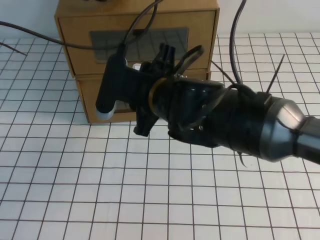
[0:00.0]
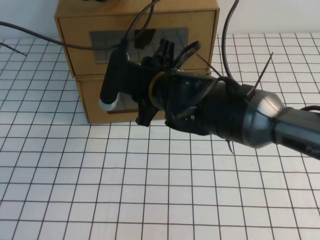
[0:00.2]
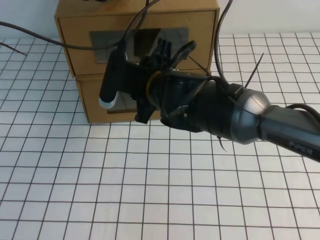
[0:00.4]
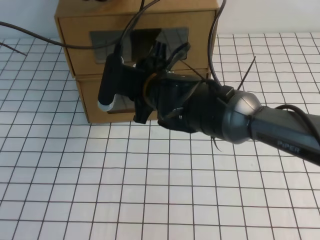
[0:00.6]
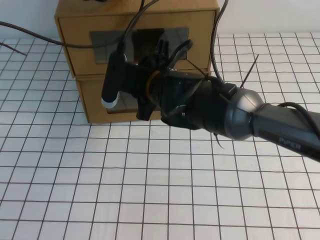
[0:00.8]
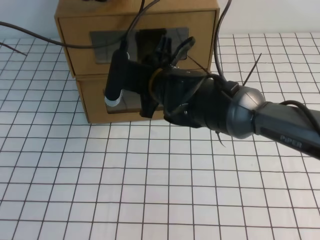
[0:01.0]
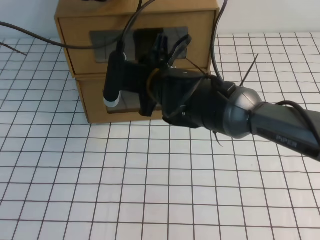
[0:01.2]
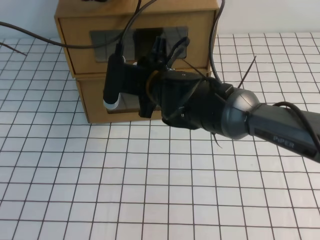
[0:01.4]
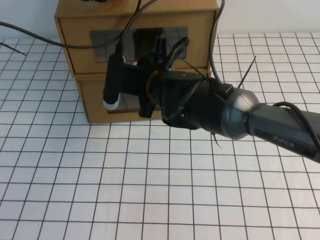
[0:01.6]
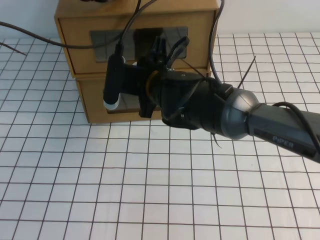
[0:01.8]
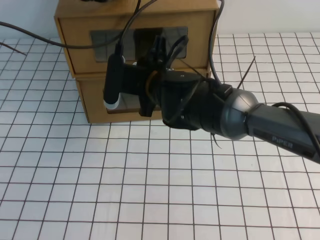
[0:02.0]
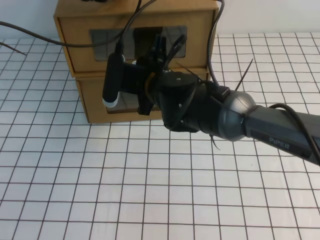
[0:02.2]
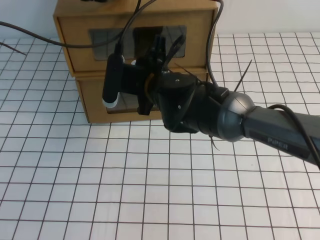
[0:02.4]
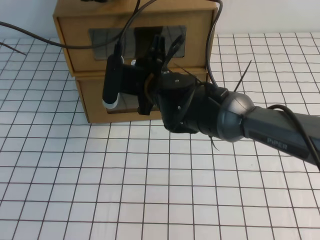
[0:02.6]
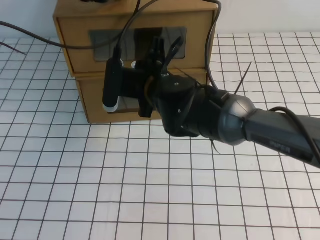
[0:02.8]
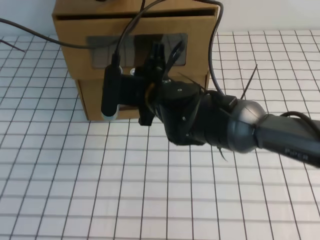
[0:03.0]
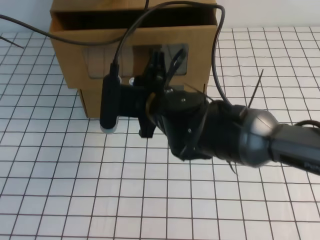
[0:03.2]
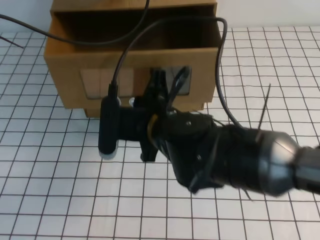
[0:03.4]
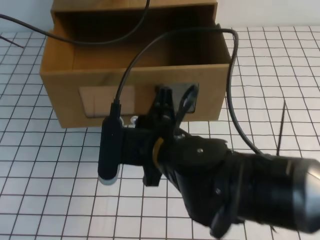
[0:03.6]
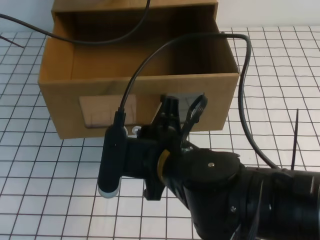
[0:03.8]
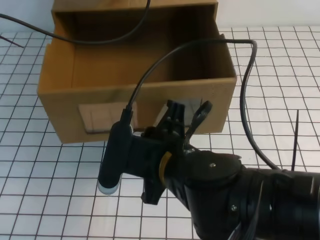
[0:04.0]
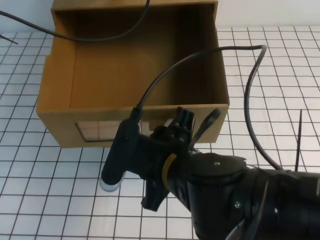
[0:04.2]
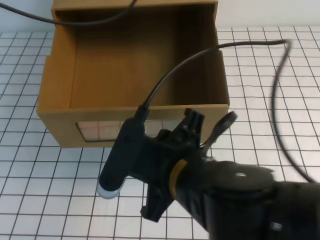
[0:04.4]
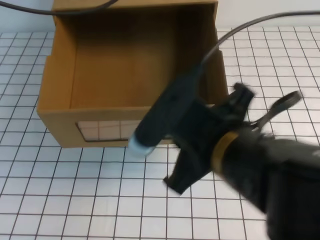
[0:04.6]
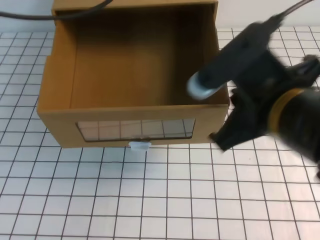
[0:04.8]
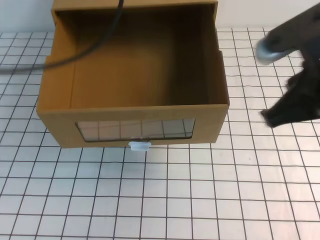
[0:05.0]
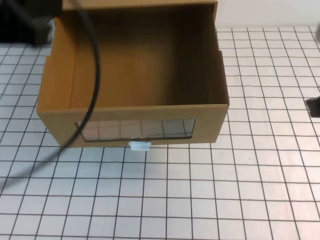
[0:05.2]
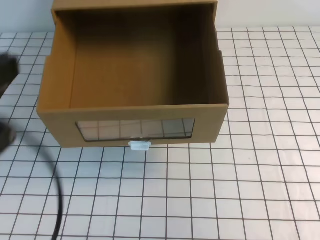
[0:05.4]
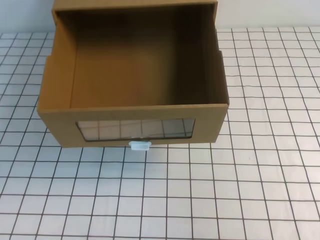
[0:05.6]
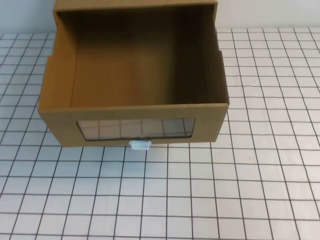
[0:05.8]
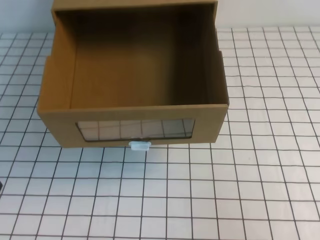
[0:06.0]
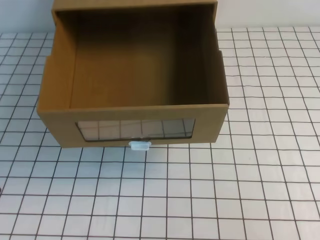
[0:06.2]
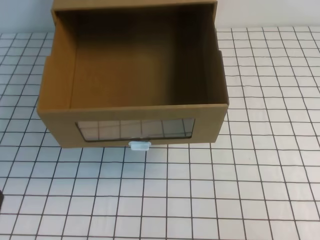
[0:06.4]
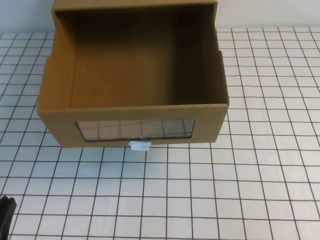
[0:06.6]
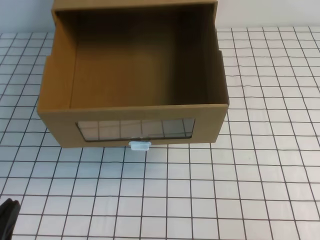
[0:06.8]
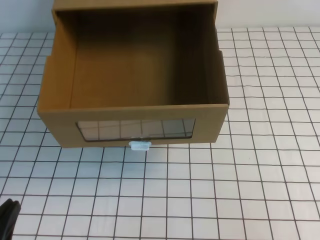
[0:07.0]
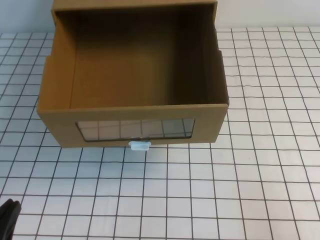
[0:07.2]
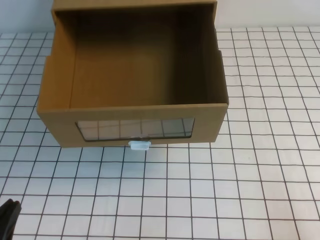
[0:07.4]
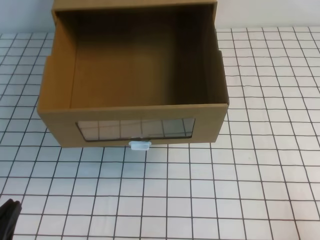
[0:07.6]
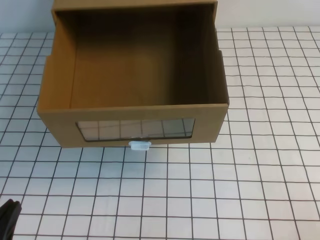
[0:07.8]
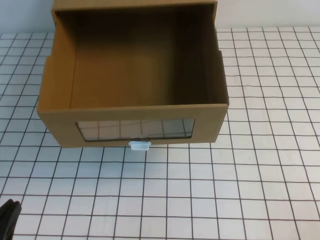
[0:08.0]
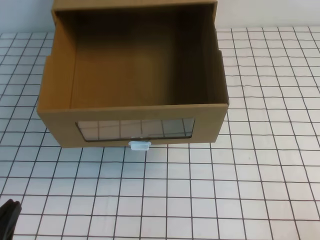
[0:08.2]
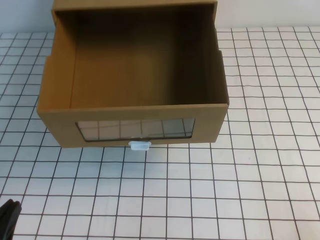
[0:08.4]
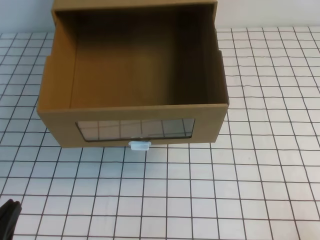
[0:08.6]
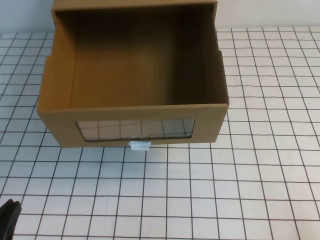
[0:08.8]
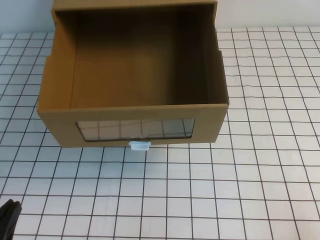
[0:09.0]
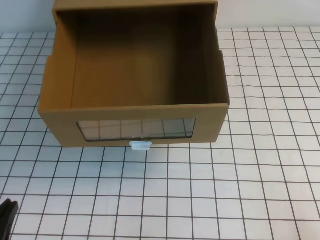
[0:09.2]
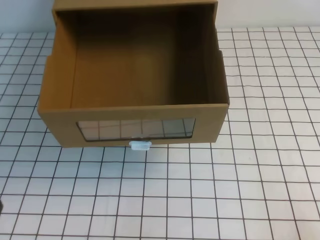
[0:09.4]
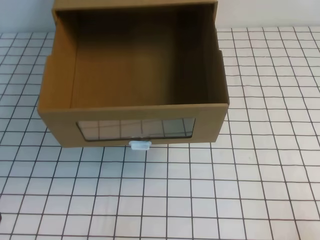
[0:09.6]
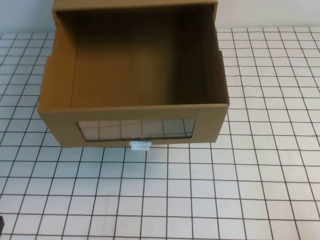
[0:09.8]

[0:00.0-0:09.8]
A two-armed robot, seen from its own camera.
Task of the whole recording: open the shoebox on the white tablecloth.
Step, 0:00.0 to 0:09.8: Open the shoe box.
0:00.0 to 0:01.4: The right gripper travels forward by roughly 10 cm.
0:01.4 to 0:02.8: The right gripper closes up.
0:02.8 to 0:04.2: The right gripper goes roughly 15 cm backward, and opens up.
0:04.2 to 0:05.6: The left gripper travels backward by some 35 cm, while the right gripper is displaced to the right and upward by approximately 25 cm, and closes its fingers.
0:05.6 to 0:07.0: The left gripper shifts some 20 cm downward.
